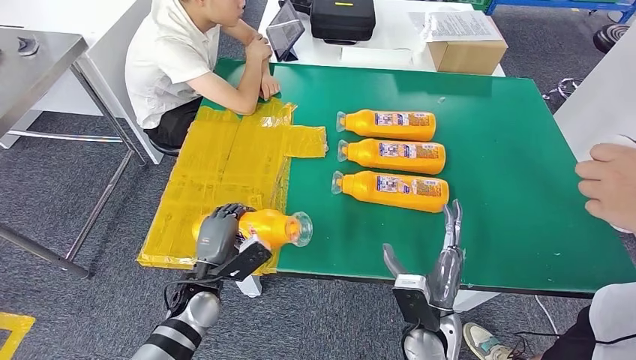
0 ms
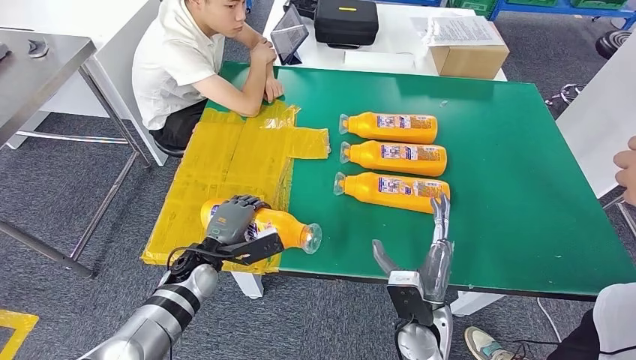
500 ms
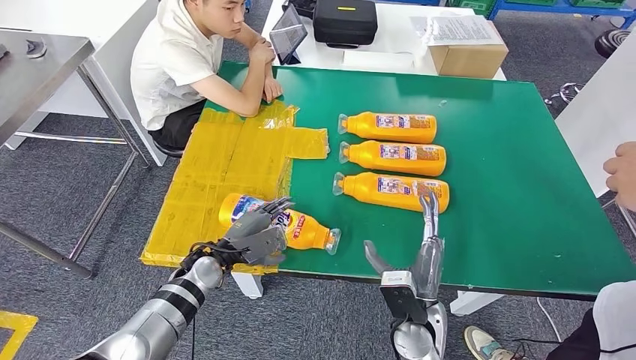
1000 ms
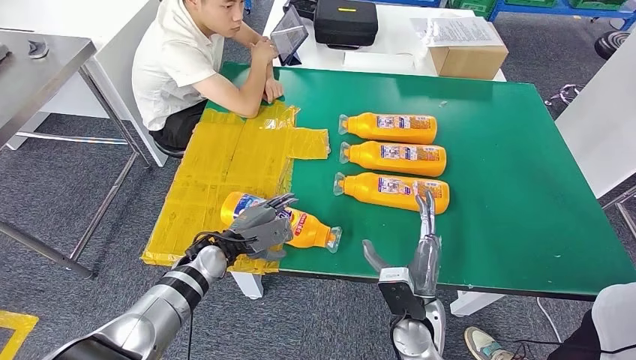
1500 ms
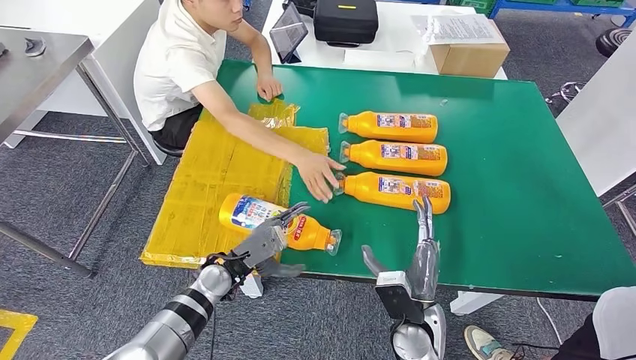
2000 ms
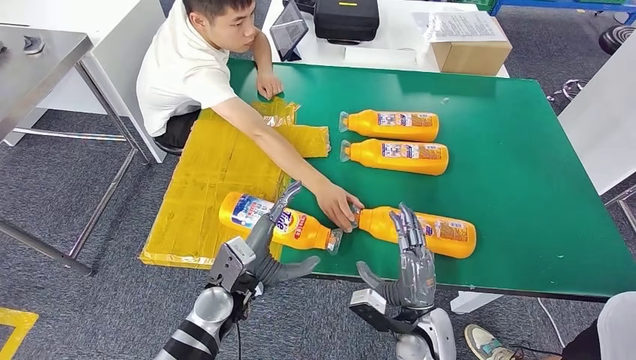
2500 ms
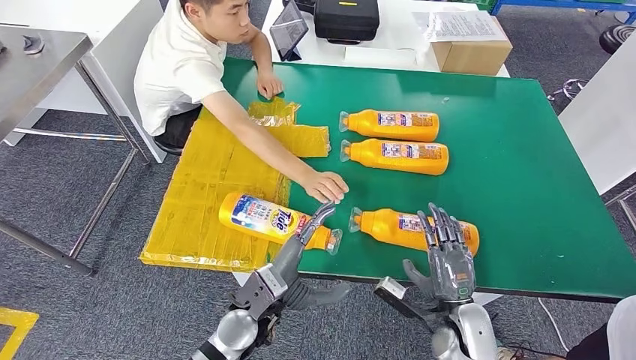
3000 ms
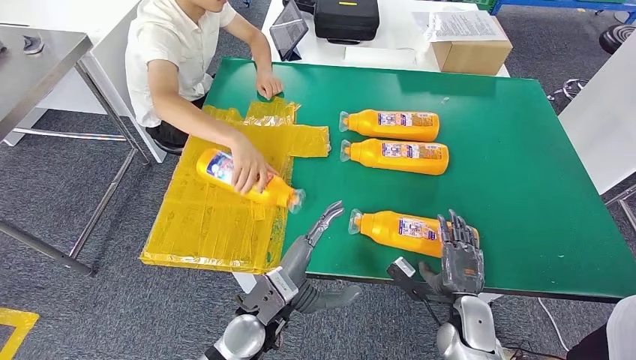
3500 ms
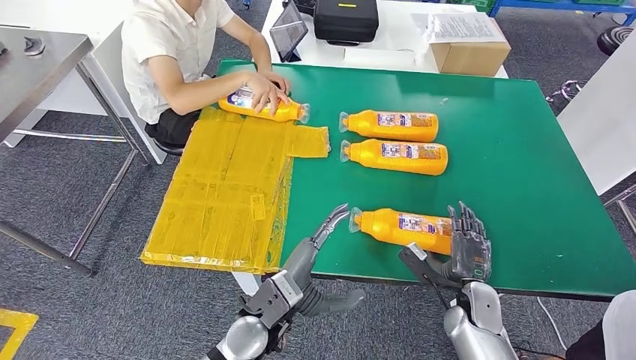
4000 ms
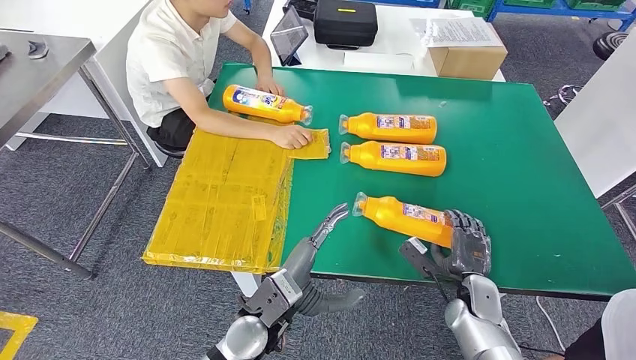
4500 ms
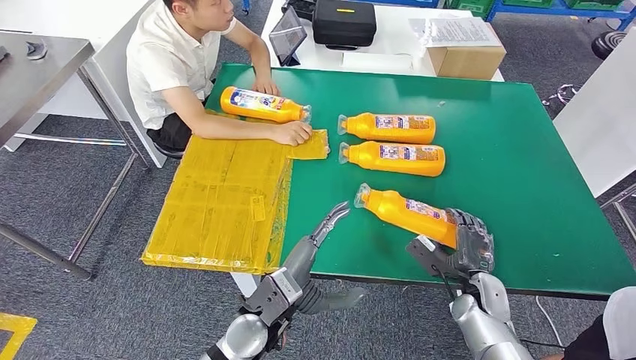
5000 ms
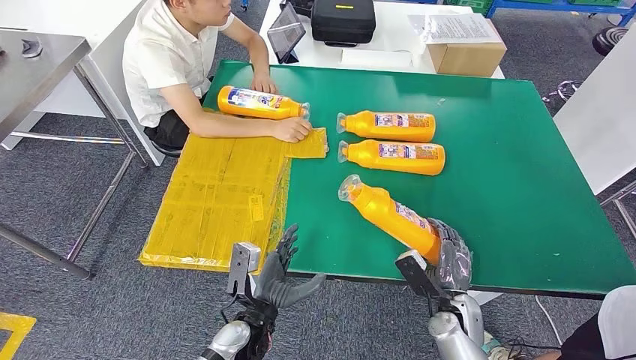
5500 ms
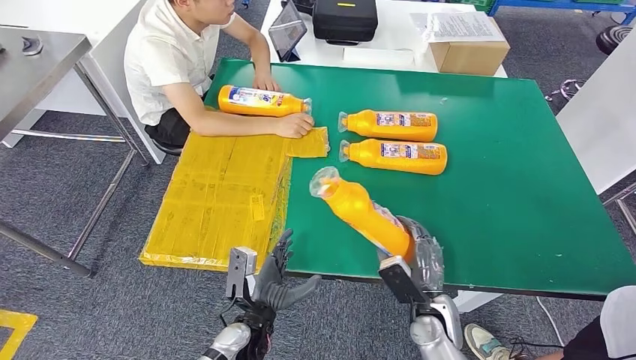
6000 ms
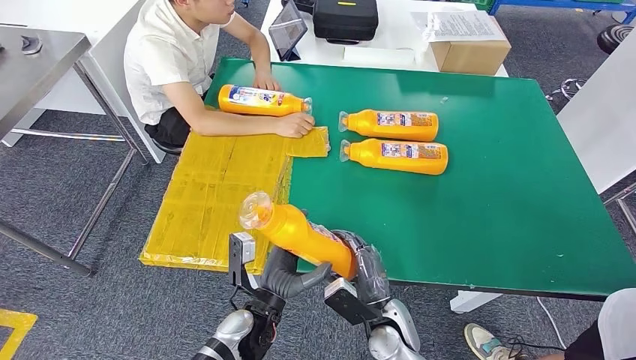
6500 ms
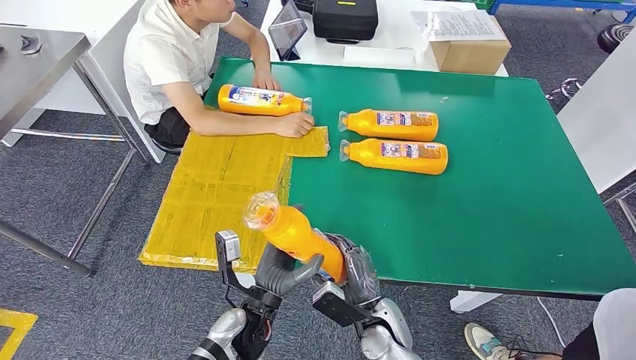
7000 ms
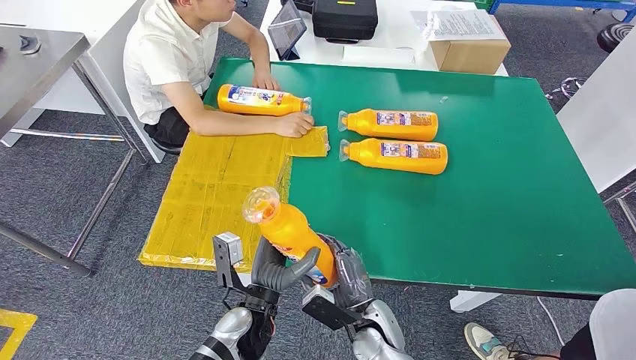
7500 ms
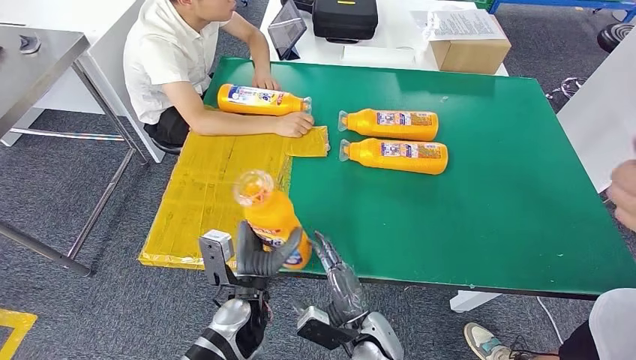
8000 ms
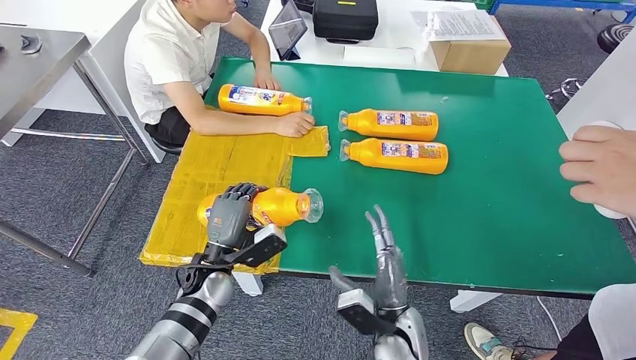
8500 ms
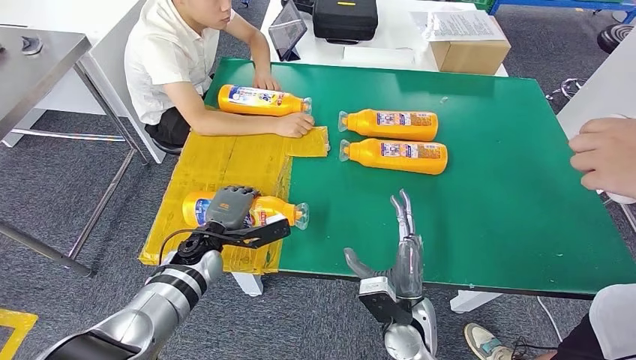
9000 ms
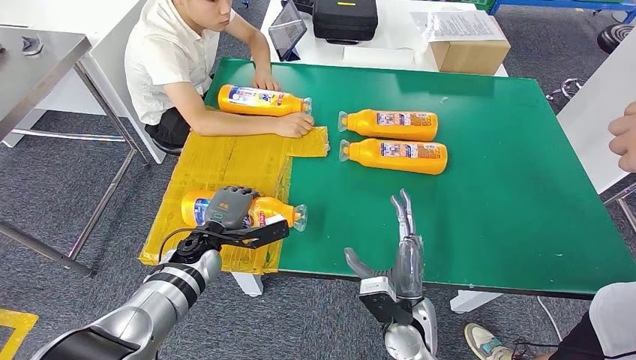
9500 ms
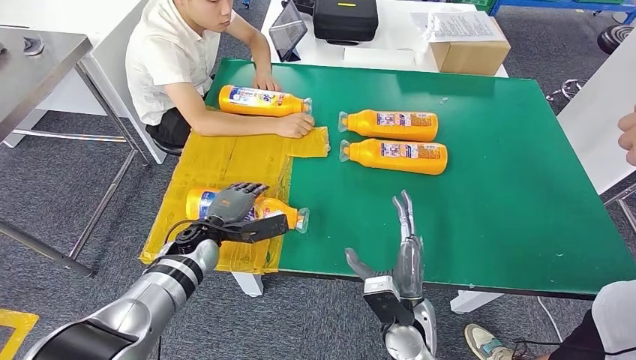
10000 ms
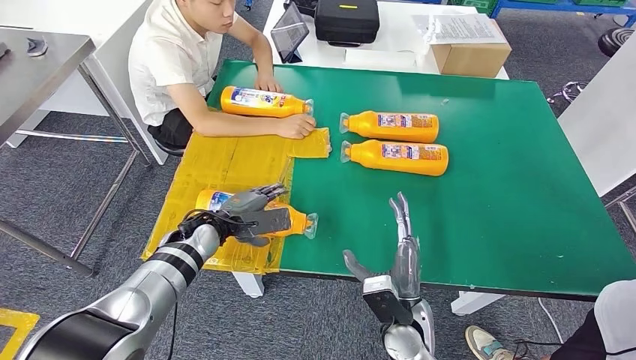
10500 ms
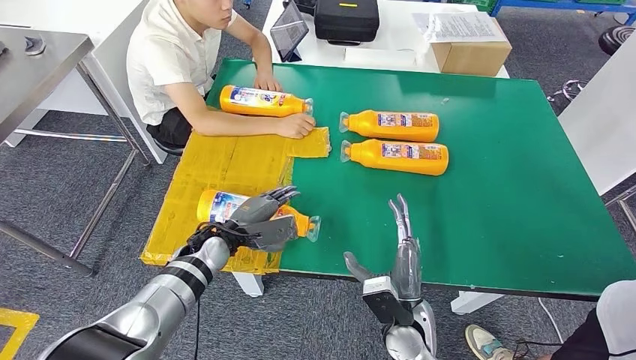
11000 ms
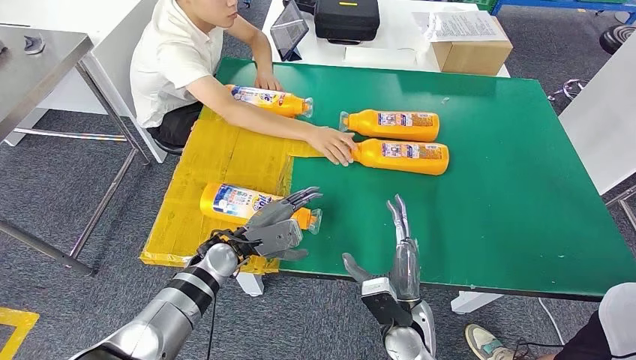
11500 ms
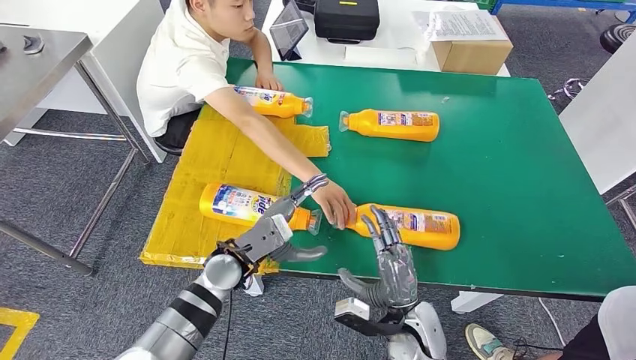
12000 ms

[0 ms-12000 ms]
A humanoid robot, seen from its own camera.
Step, 0 ms to 2000 ms: Flip the fast-moving consumer goods bottle to the front side.
Step, 2500 ms to 6500 ms: Pick up the fast-moving consumer goods bottle from the table.
Step, 7000 ms to 11500 ms: Flip the fast-moving consumer goods bottle to the front side.
4000 ms to 6000 ms: The left hand heads downward, covering about 10 cm, while the right hand travels to the left by some 10 cm.
6000 ms to 8000 ms: The left hand is displaced upward by some 5 cm. Meanwhile the right hand heads to the left, covering roughly 10 cm.
8000 ms to 10000 ms: The left hand moves forward and to the left, about 15 cm; the right hand shifts roughly 10 cm upward and to the right.

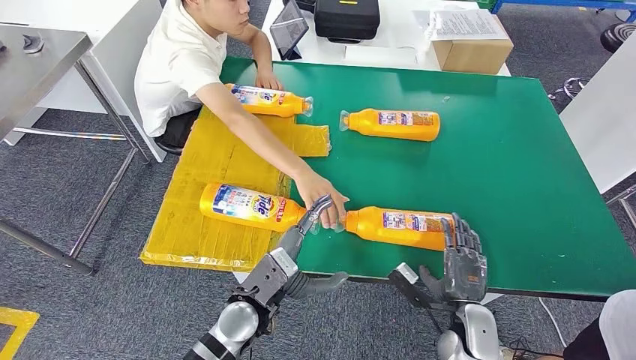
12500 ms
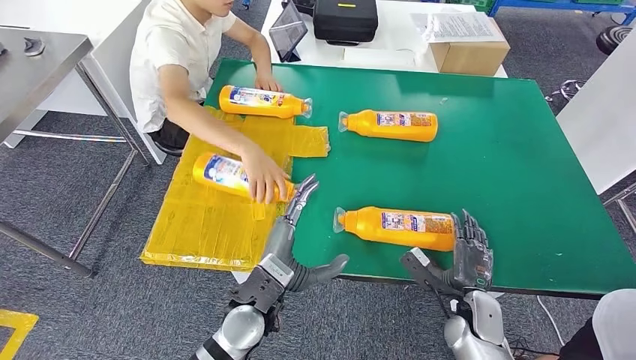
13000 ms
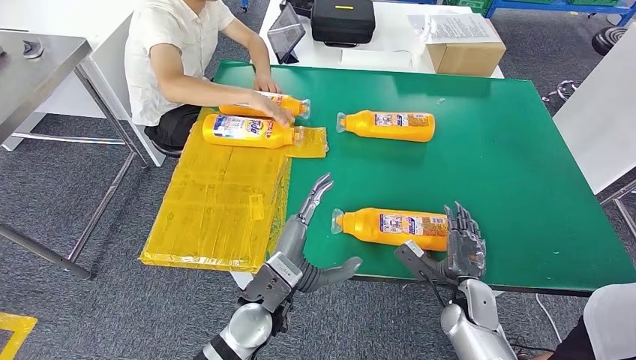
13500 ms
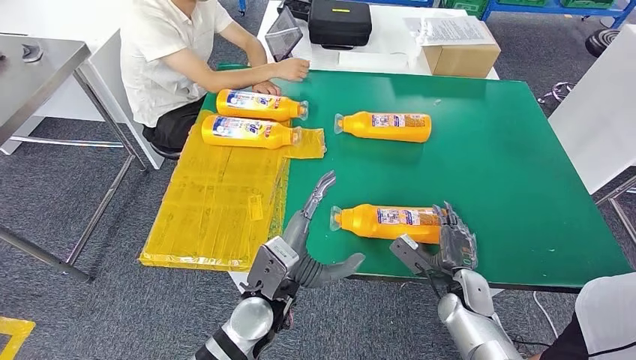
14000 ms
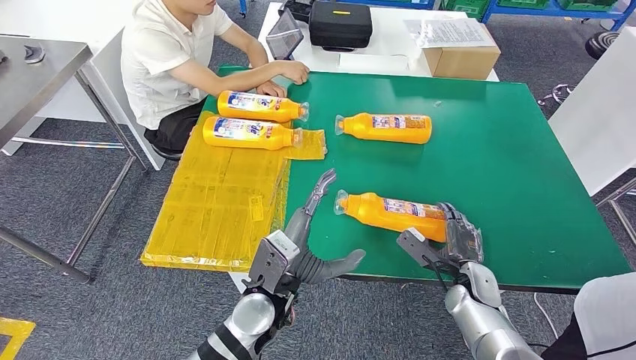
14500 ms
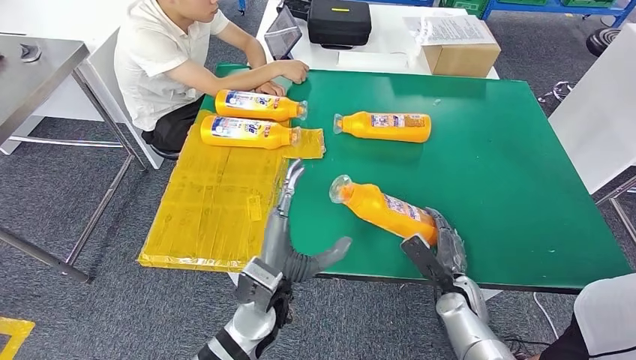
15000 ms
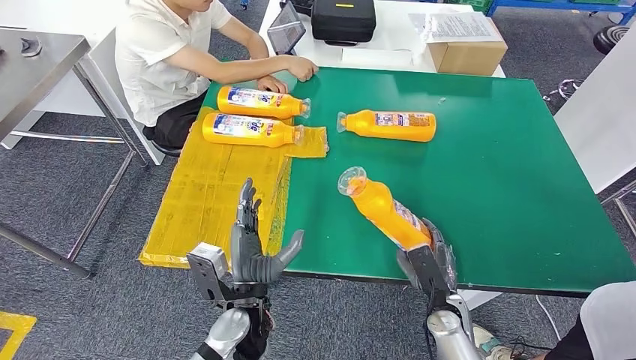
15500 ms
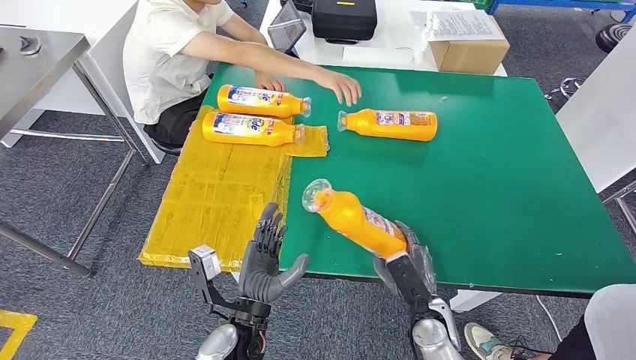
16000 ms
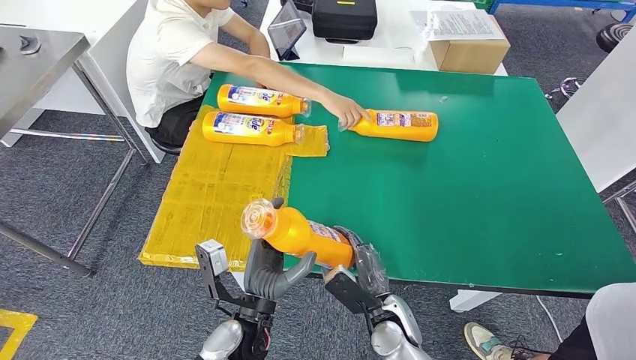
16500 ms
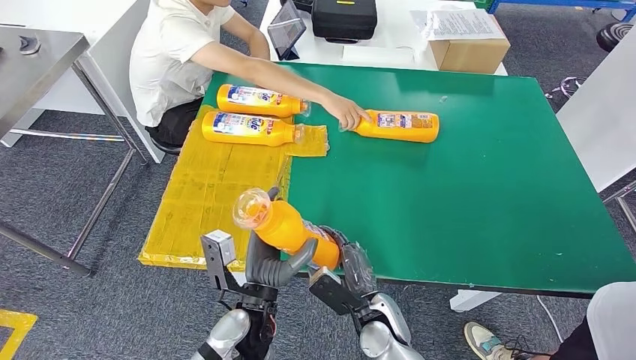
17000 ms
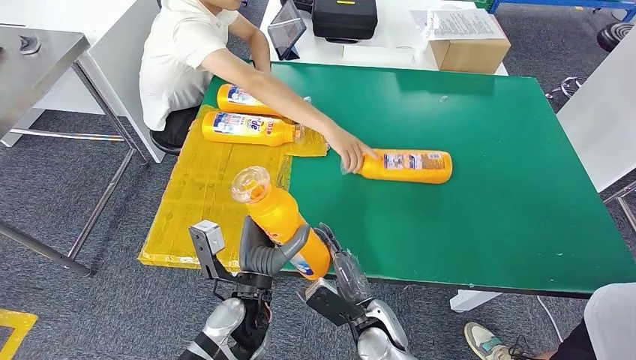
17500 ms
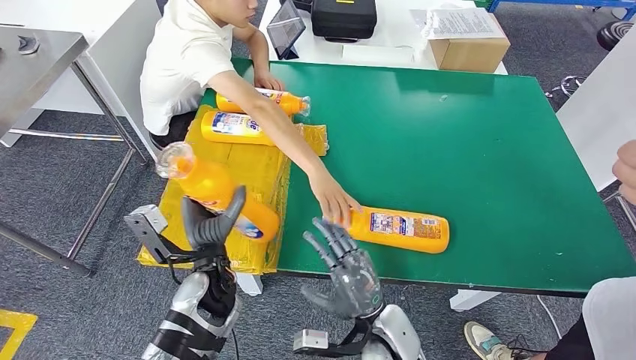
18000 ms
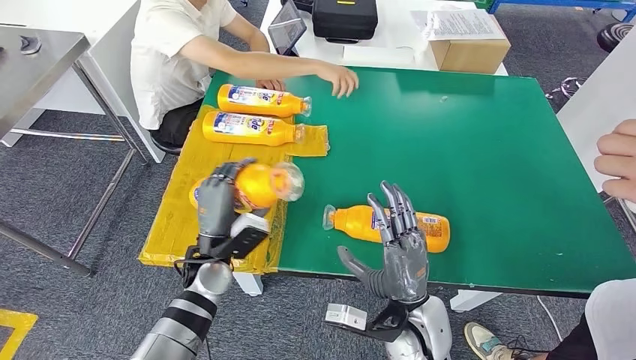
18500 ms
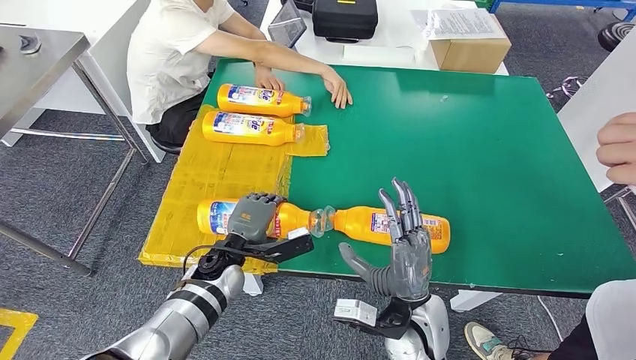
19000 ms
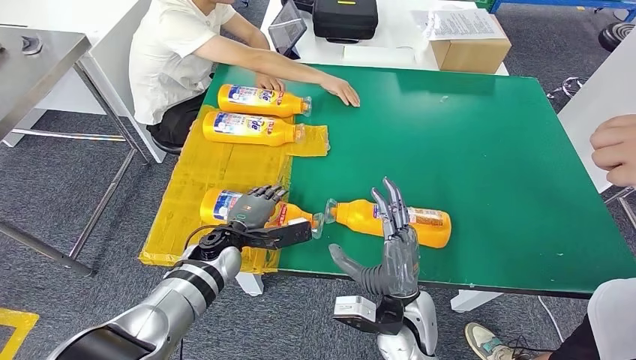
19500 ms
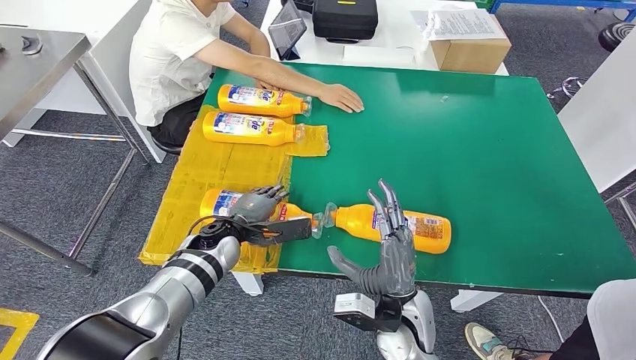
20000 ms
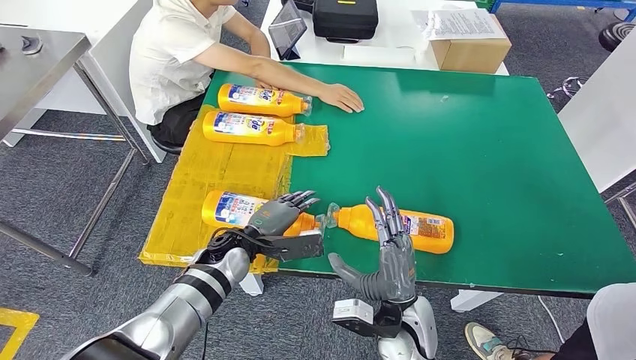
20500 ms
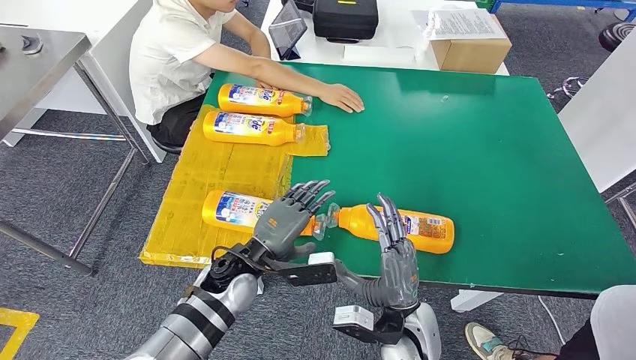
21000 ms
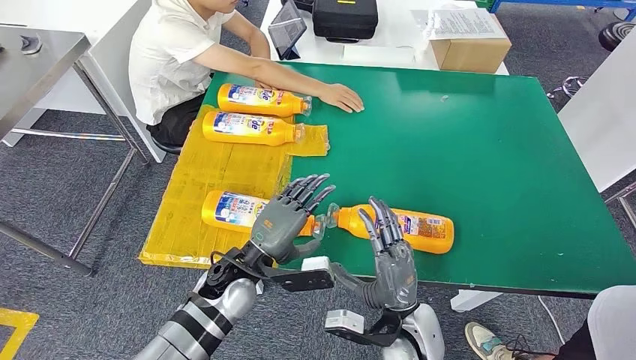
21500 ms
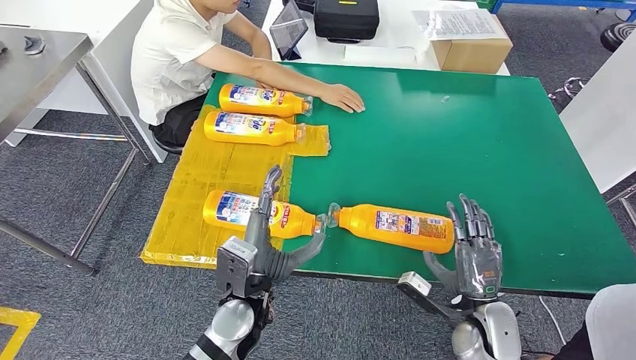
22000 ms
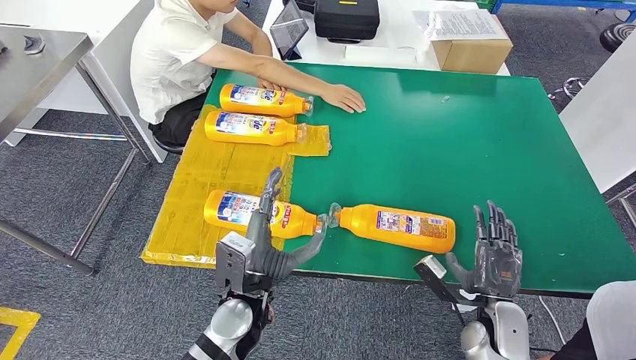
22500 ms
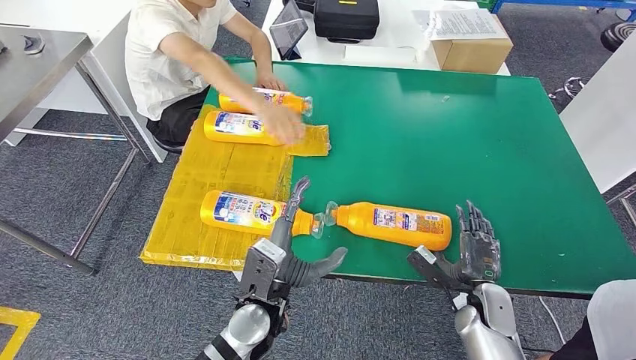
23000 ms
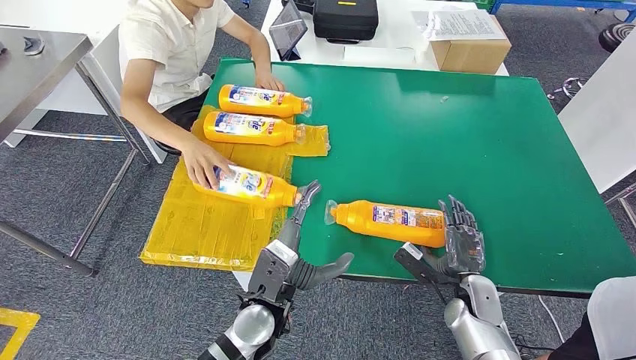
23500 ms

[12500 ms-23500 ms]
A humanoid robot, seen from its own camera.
Step, 12500 ms to 16500 ms: Pick up the fast-moving consumer goods bottle from the table.
Step, 17000 ms to 21000 ms: Flip the fast-moving consumer goods bottle to the front side.
20000 ms to 21500 ms: The left hand shifts roughly 5 cm backward.
